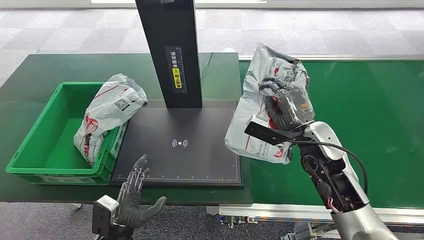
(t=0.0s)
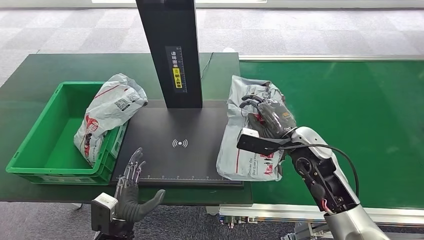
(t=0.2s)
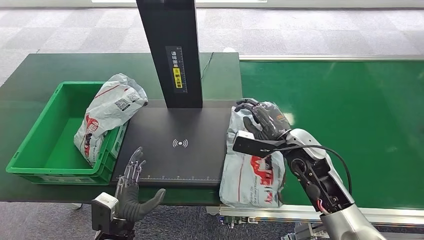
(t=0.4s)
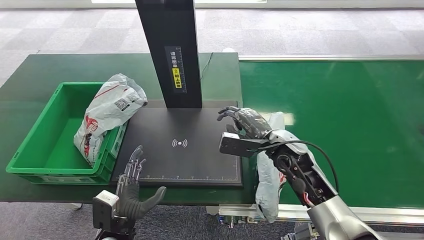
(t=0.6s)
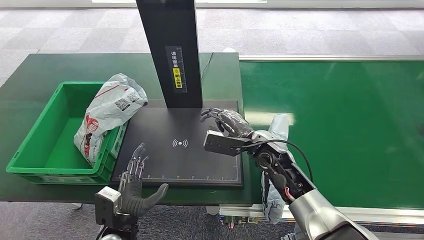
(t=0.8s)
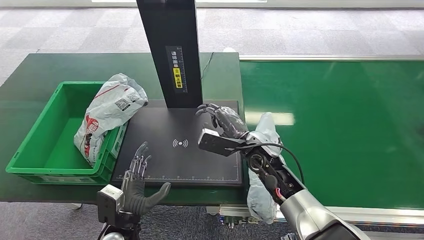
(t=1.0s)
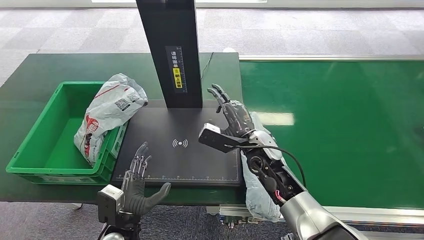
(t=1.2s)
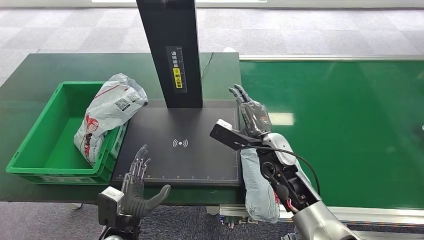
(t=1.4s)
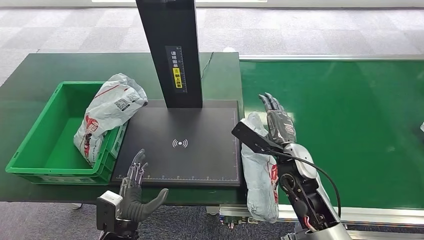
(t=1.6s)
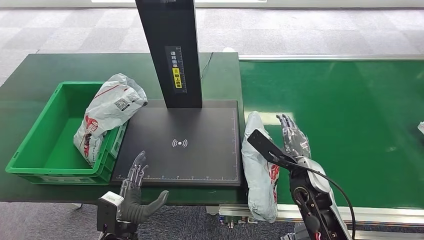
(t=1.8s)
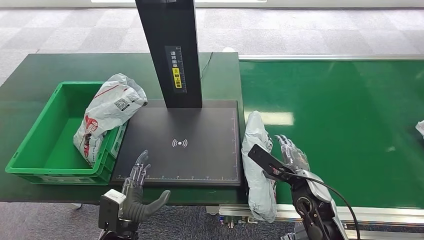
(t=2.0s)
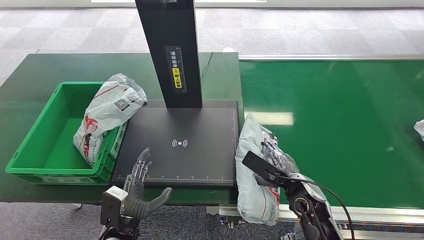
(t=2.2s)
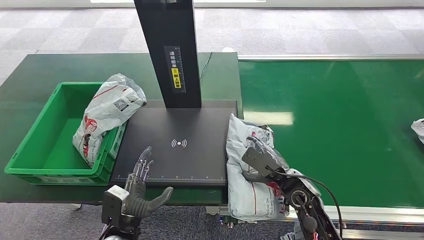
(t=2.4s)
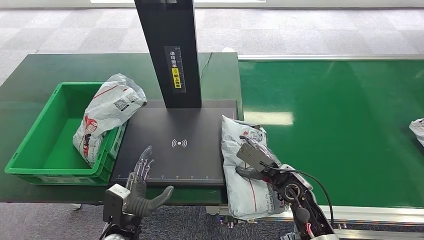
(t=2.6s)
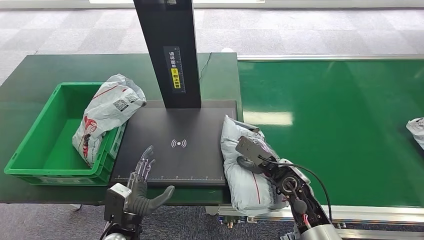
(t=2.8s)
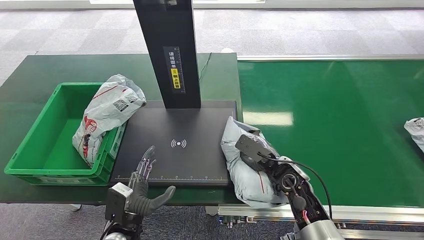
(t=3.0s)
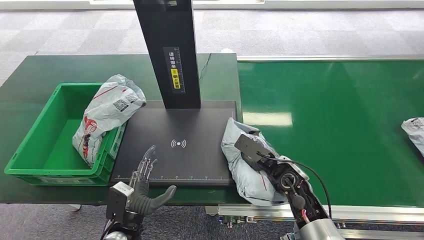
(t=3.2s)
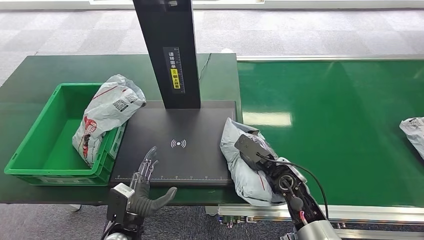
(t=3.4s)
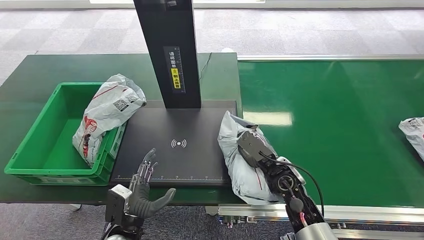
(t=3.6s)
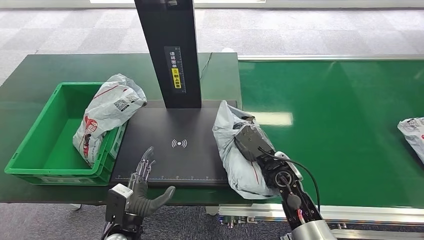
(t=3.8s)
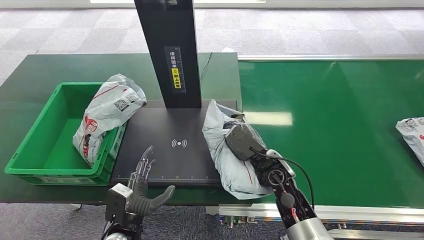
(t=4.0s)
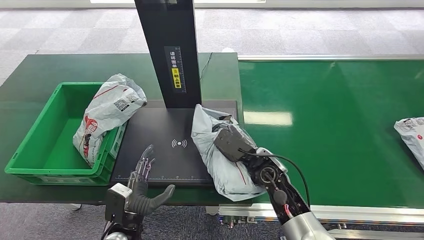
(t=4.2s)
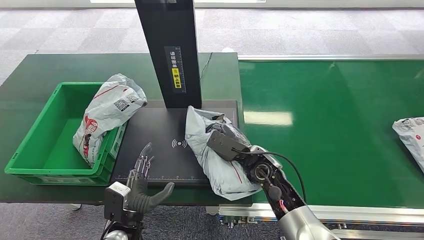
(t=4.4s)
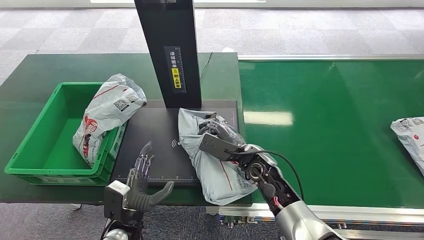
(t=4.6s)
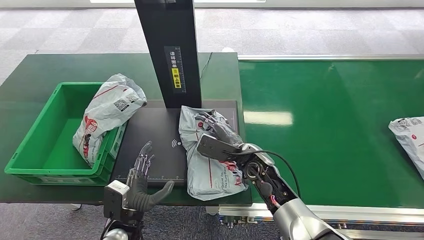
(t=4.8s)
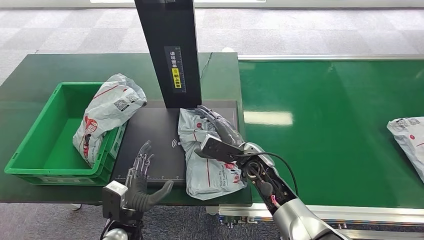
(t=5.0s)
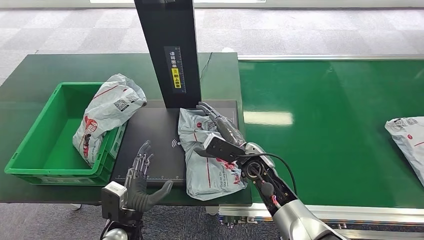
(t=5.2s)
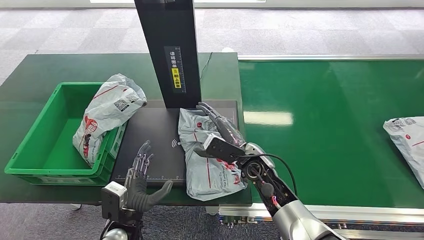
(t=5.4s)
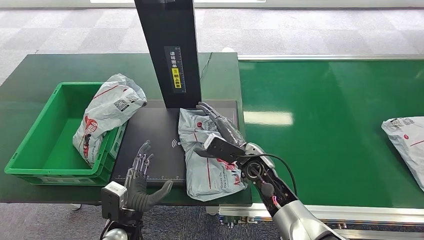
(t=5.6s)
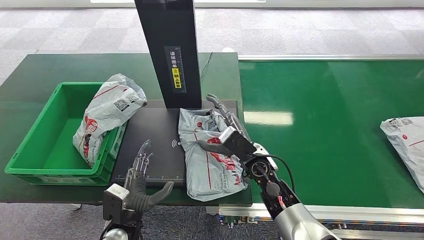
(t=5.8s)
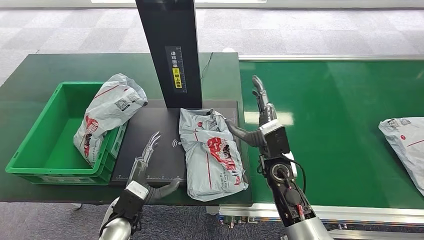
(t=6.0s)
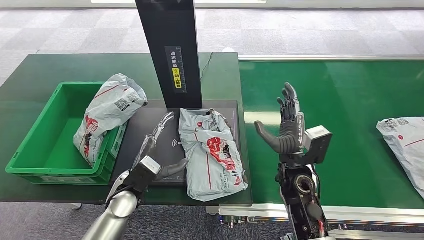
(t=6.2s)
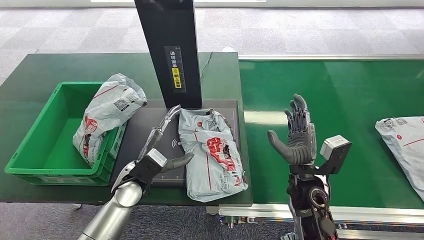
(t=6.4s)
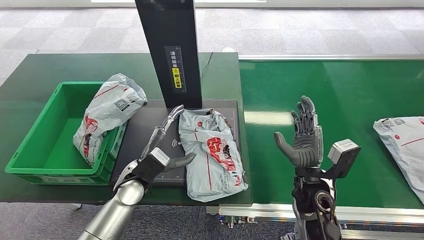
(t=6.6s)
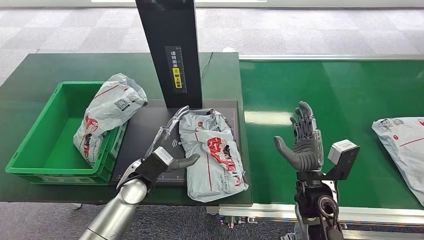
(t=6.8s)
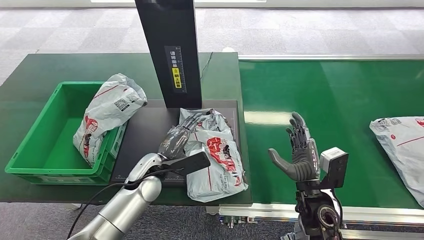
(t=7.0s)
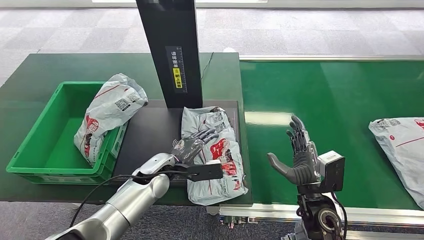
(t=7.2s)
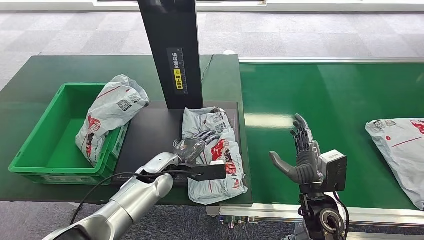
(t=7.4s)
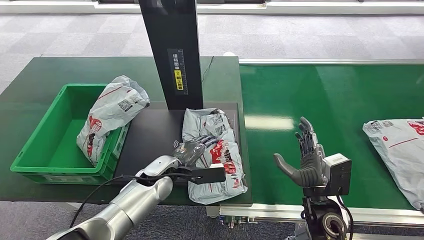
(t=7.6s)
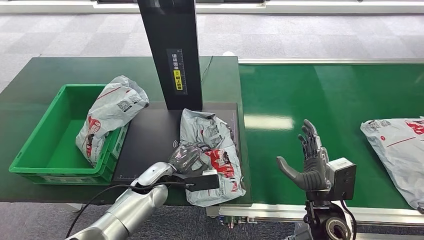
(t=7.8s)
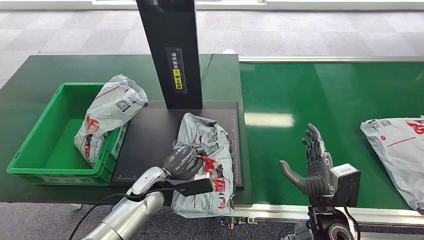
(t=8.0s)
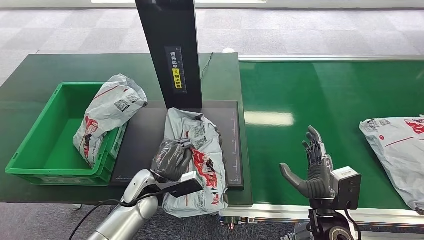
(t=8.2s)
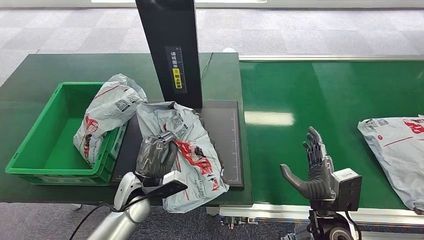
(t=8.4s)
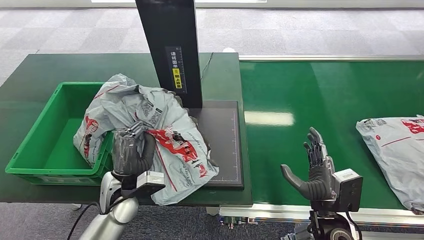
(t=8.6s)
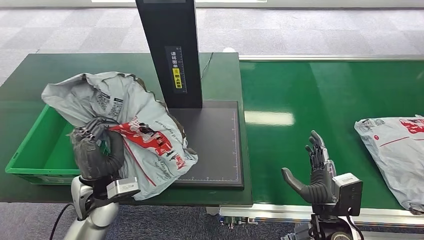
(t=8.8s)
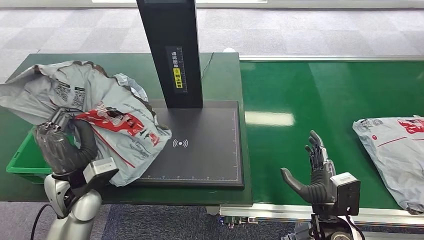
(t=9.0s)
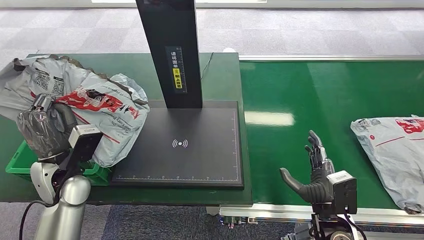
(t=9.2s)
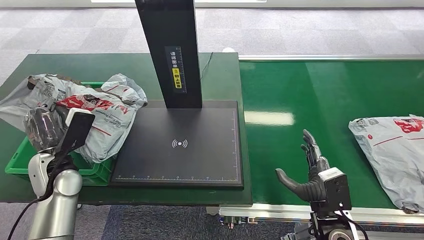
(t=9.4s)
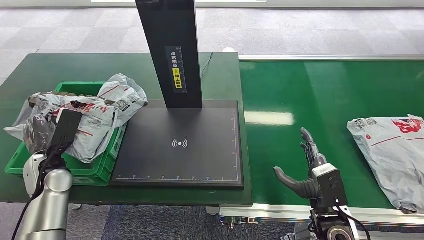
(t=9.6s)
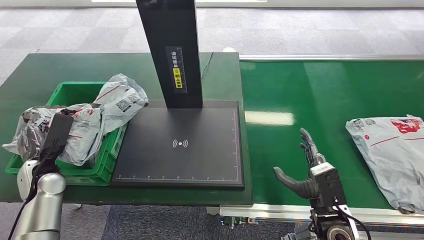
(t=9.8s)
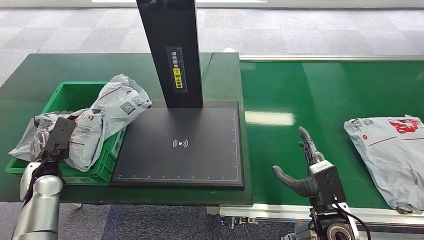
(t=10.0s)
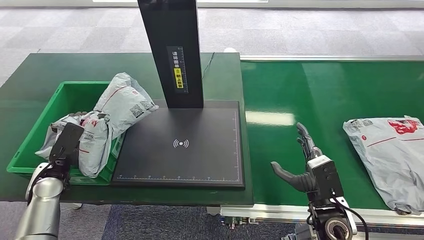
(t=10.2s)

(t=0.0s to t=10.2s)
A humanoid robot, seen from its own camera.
Step, t=6.0s - t=6.2s: Place the package onto the inbound machine.
t=1.4s - t=3.0s: The right hand goes about 10 cm downward and to the right.
t=3.0s - t=4.4s: The right hand travels to the left by approximately 5 cm.
t=5.8s - t=7.2s: The left hand is displaced forward by about 15 cm, while the right hand heads to the right and backward, covering some 15 cm.
